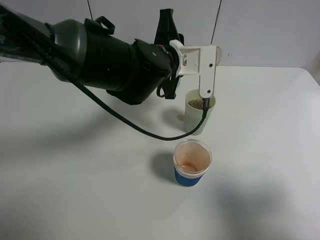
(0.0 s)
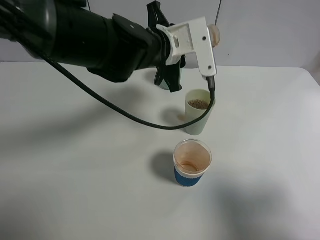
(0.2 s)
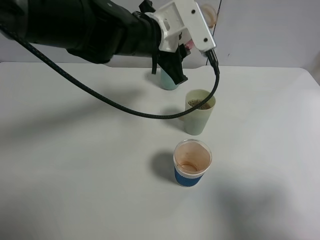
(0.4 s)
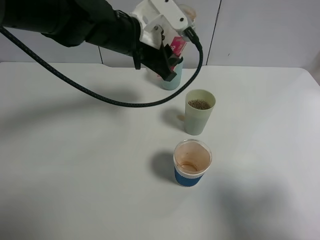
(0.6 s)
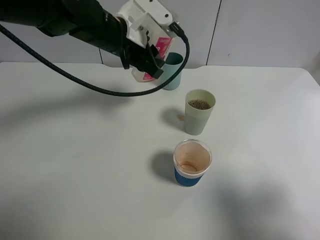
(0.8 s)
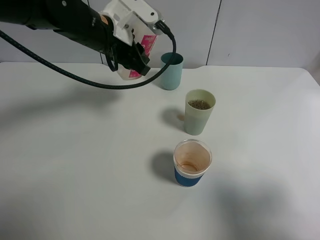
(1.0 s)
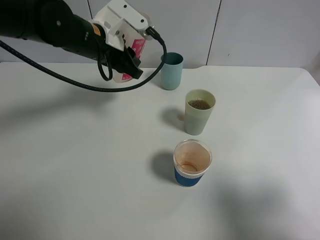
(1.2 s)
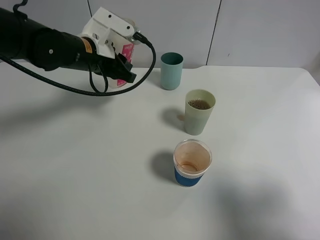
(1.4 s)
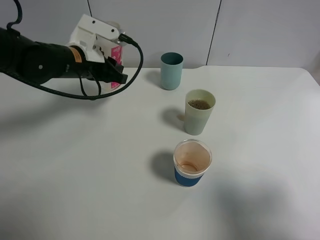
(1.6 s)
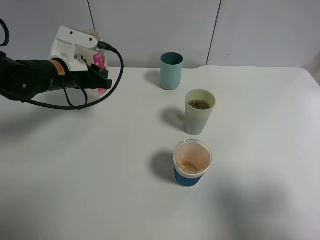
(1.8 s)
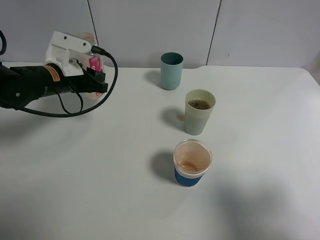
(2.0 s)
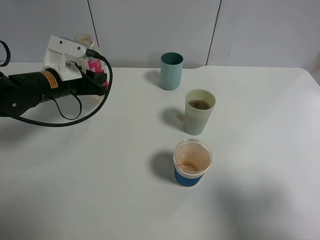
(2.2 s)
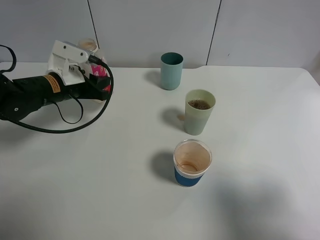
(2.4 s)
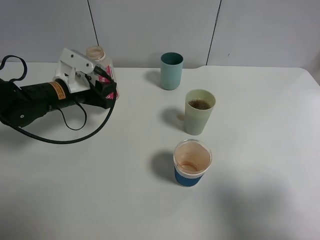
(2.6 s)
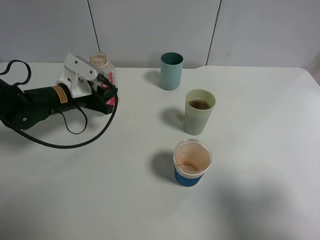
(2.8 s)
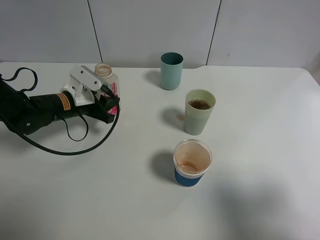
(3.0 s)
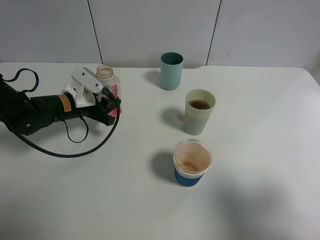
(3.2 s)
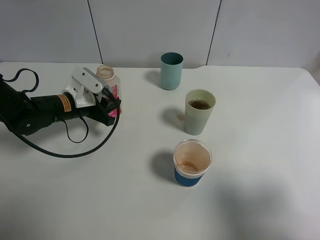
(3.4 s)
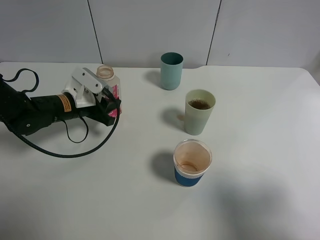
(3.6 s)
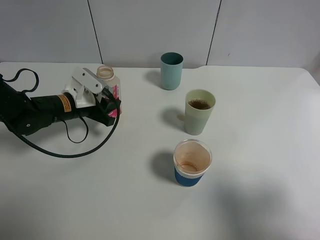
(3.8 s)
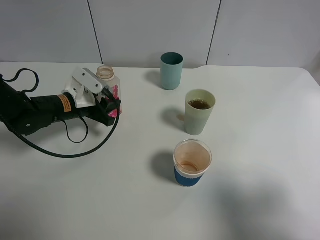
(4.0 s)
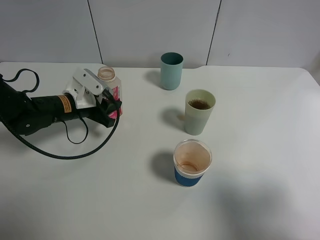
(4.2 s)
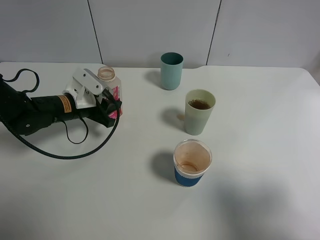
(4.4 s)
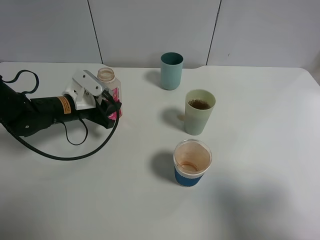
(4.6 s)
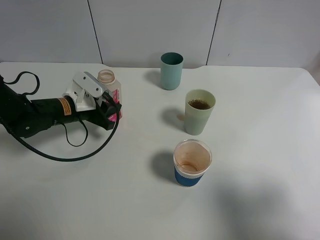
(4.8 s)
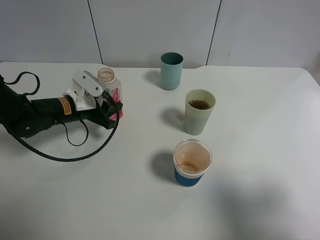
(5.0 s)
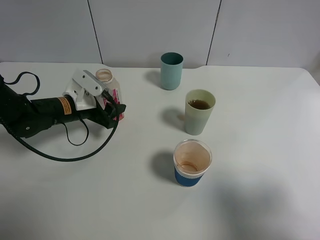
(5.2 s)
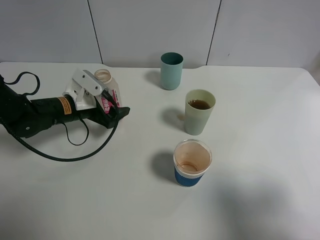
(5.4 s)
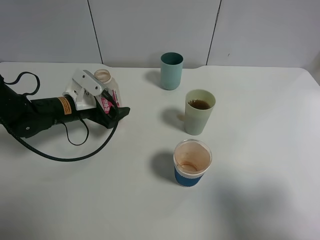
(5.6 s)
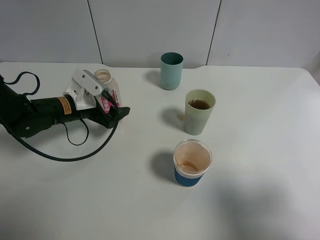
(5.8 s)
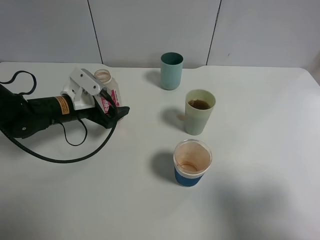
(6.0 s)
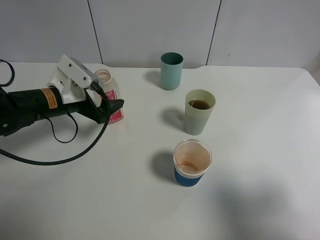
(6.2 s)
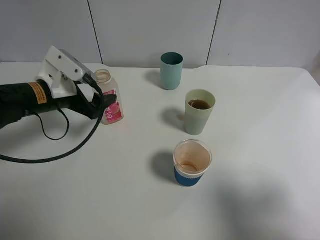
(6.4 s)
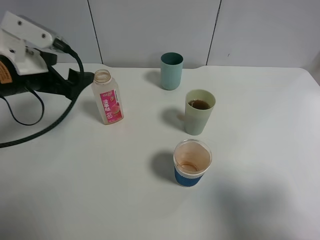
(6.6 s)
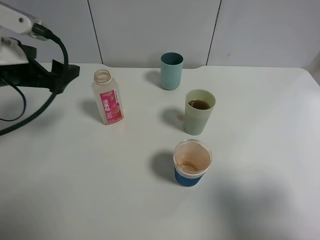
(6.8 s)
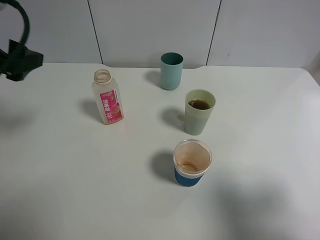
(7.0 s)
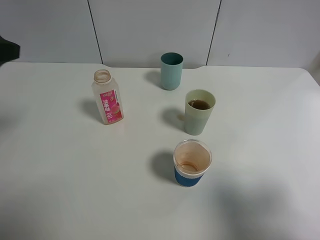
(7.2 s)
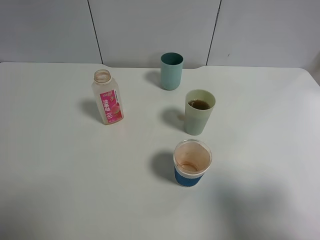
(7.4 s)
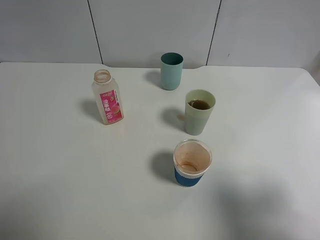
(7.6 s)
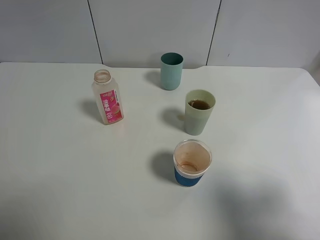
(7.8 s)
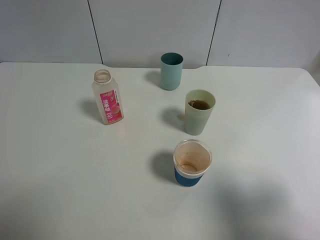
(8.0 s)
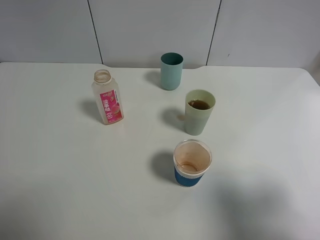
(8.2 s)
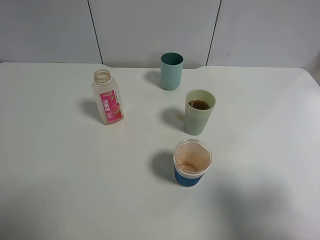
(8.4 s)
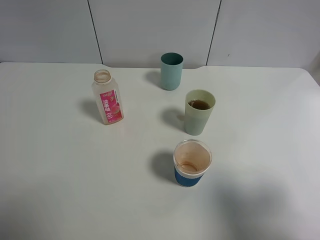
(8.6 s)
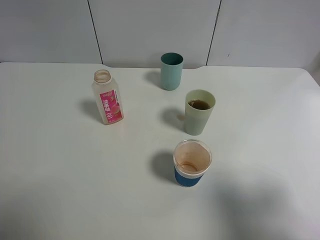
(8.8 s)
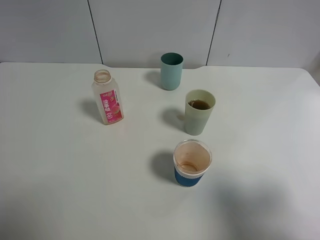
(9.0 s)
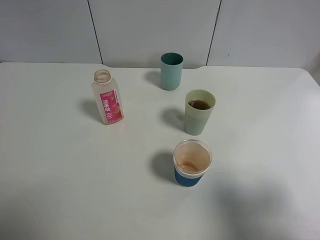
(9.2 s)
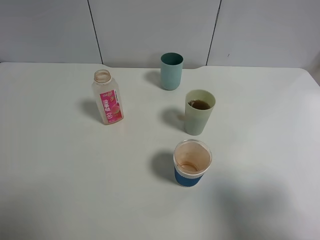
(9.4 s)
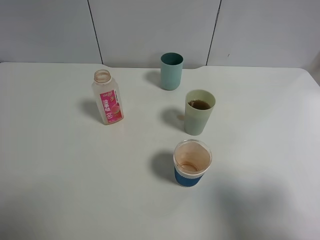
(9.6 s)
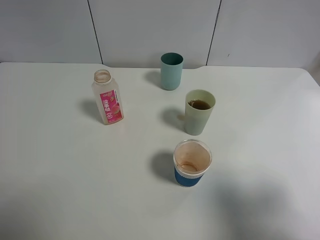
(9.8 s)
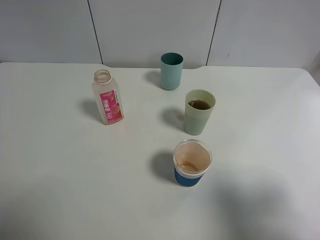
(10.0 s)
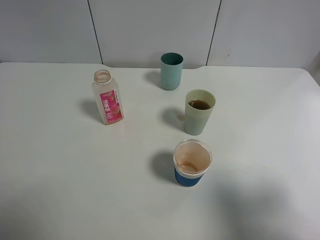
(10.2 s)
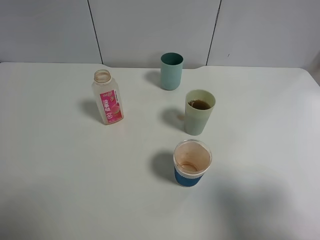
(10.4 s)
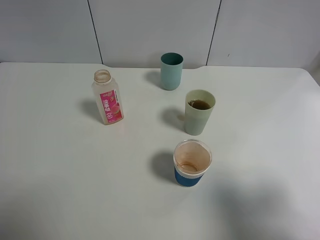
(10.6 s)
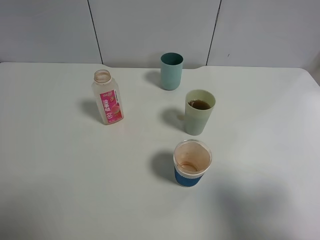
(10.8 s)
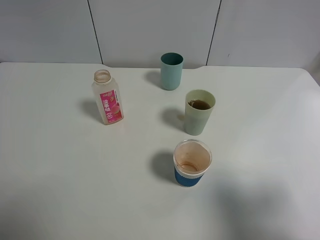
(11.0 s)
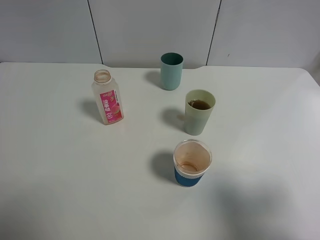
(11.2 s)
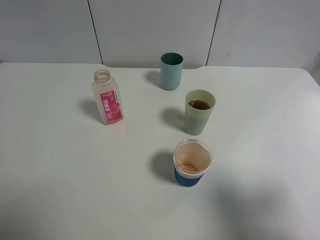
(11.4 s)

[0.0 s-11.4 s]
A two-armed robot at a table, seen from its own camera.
Task of the whole recording: use a gripper to hold the bottle of the drink and pour it into a random cup.
Step, 0.4 to 5.6 s: Place the cranberry juice bottle on the table with the left gripper.
0.0 to 1.4 s: The left gripper heads to the left, covering approximately 15 cm.
1.4 to 2.8 s: The left gripper travels downward and to the left by roughly 10 cm.
2.8 to 4.2 s: The grippers move only a little.
4.2 to 5.6 s: The left gripper opens.
5.6 to 7.2 s: The left gripper goes some 30 cm upward and backward.
7.2 to 8.6 s: The left gripper goes roughly 15 cm backward.
10.0 to 11.4 s: The two grippers keep their place.
